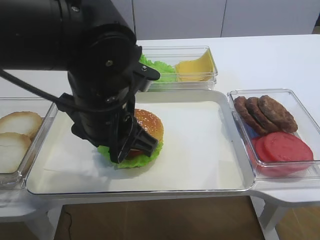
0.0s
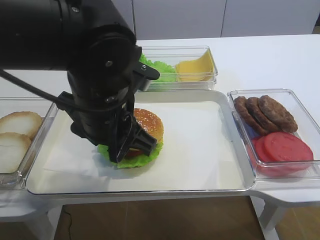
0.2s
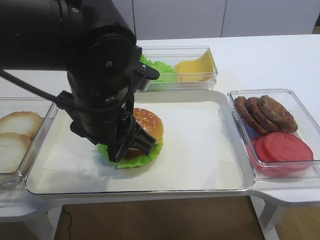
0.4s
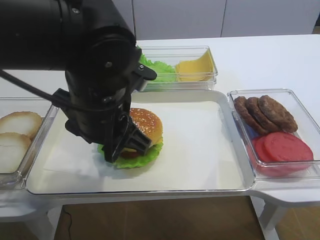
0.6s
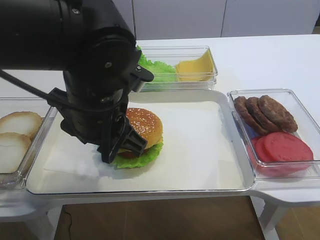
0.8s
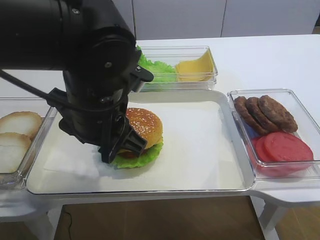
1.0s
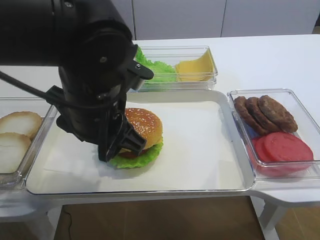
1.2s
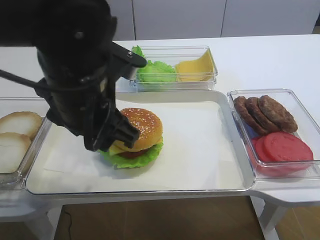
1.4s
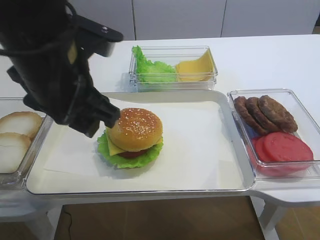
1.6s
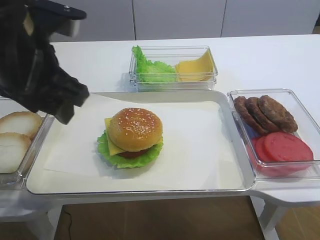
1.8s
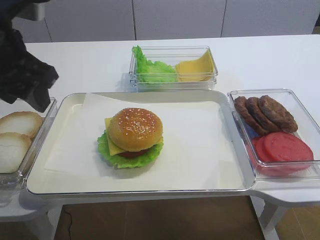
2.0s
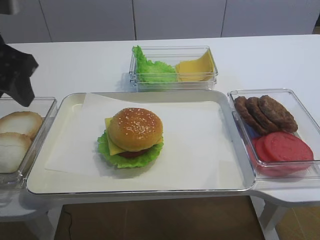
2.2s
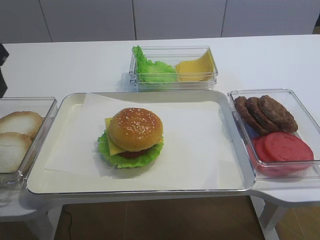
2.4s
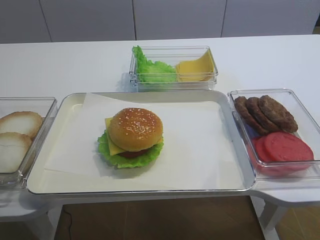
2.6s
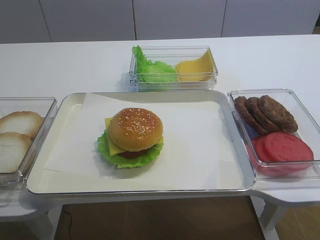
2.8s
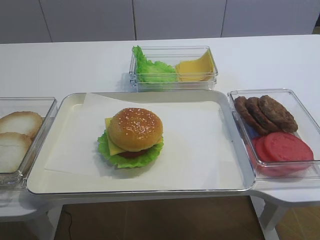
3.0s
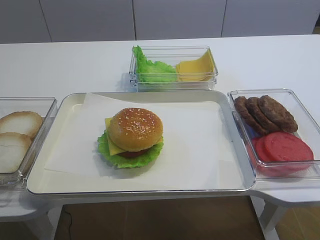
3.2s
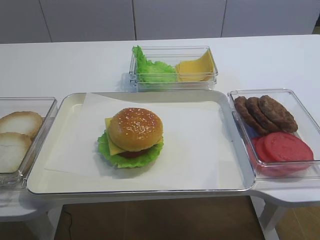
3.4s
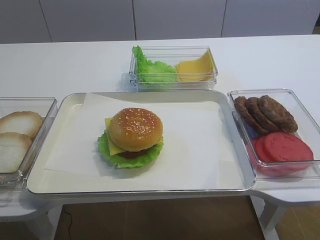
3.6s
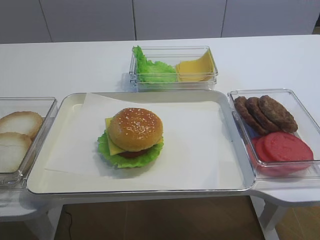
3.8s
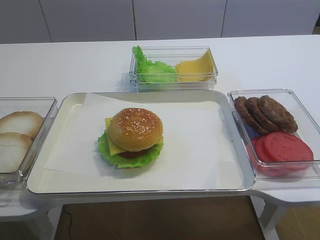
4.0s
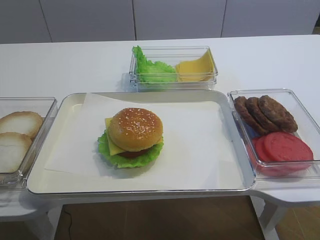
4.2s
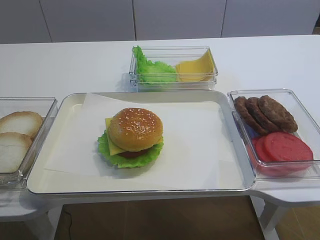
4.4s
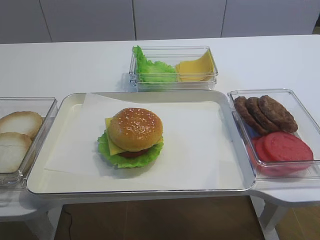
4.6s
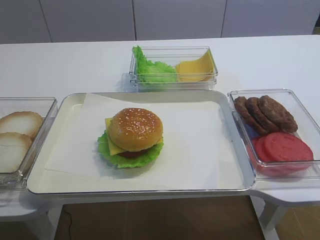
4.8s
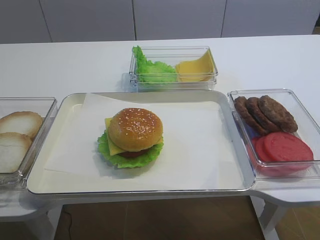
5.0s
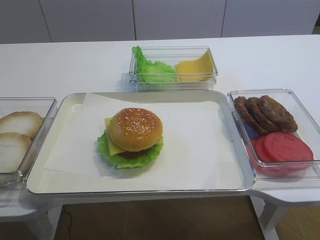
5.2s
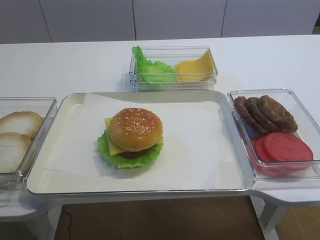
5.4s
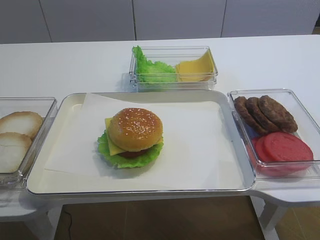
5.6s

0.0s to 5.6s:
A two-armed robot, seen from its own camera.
0.0s to 1.4s: The grippers move only a little.
1.4s to 2.8s: The left gripper shifts some 20 cm to the left and upward.
